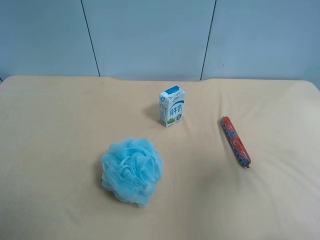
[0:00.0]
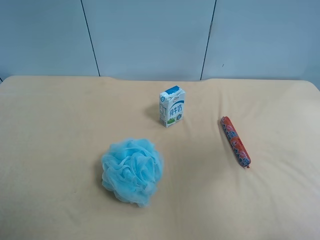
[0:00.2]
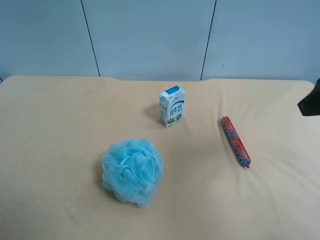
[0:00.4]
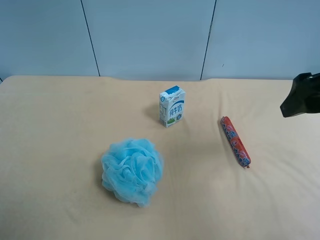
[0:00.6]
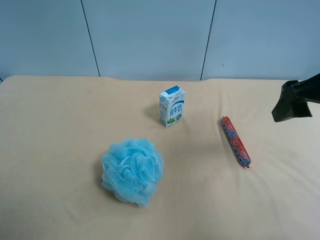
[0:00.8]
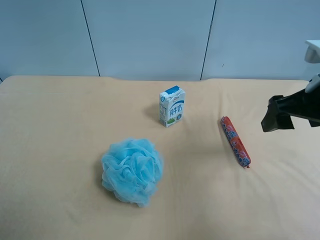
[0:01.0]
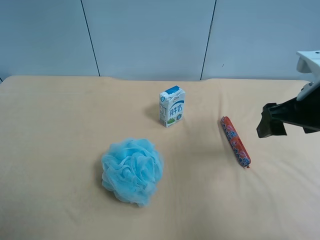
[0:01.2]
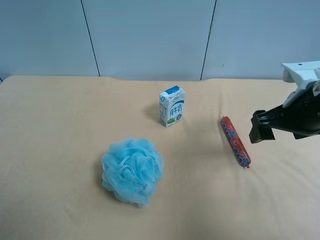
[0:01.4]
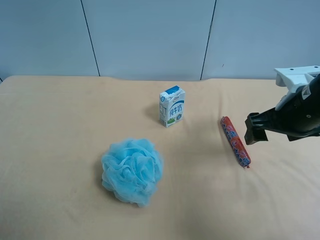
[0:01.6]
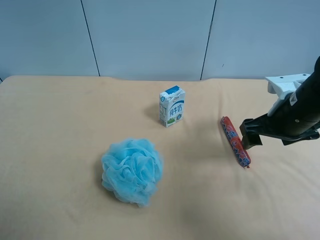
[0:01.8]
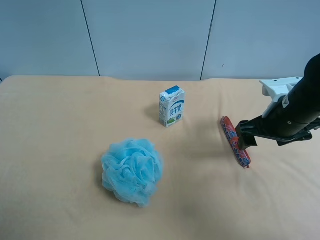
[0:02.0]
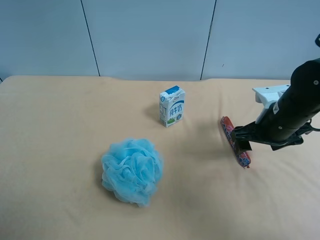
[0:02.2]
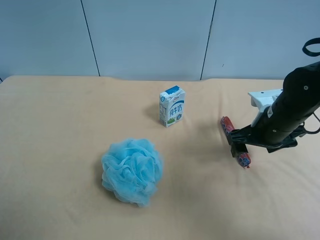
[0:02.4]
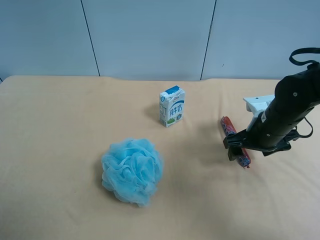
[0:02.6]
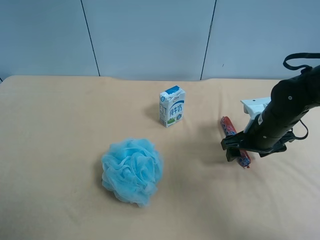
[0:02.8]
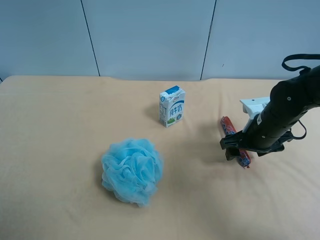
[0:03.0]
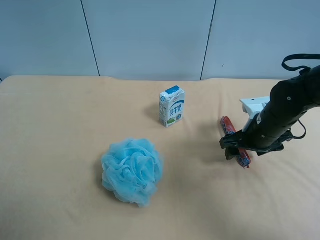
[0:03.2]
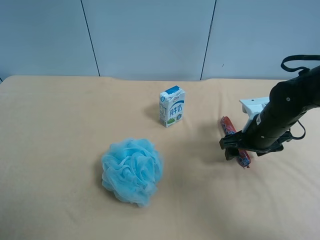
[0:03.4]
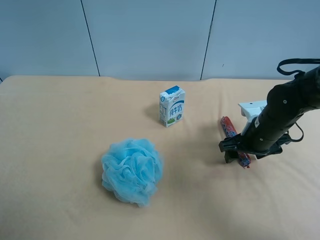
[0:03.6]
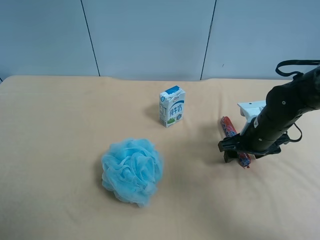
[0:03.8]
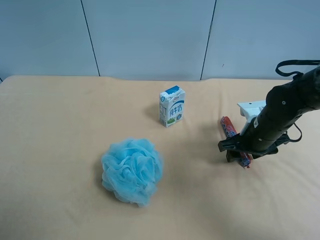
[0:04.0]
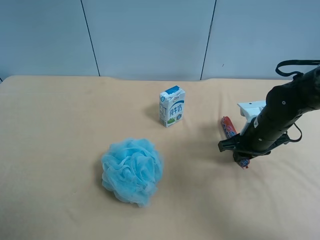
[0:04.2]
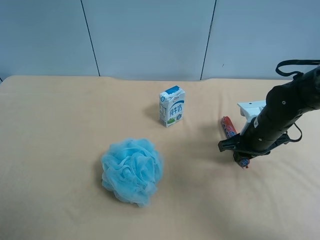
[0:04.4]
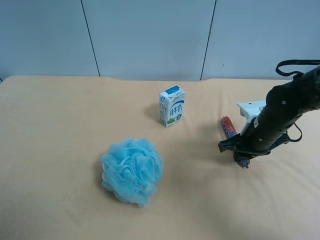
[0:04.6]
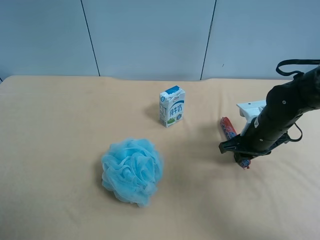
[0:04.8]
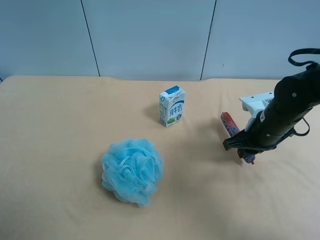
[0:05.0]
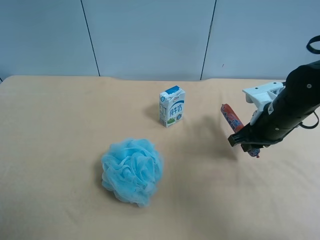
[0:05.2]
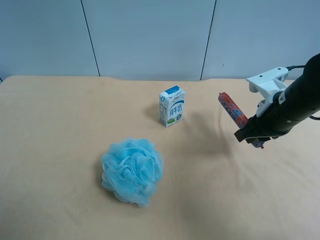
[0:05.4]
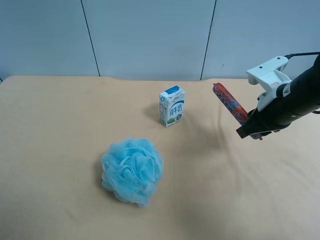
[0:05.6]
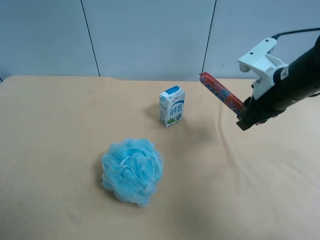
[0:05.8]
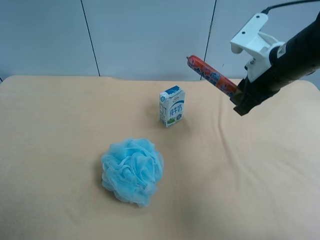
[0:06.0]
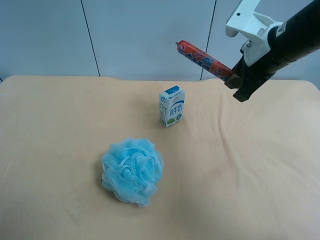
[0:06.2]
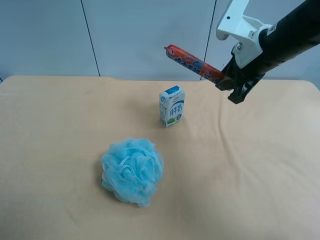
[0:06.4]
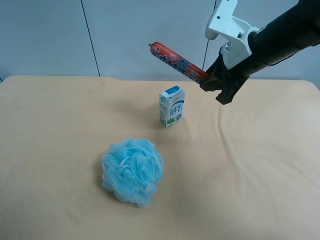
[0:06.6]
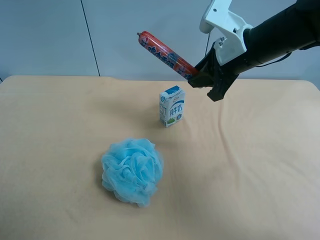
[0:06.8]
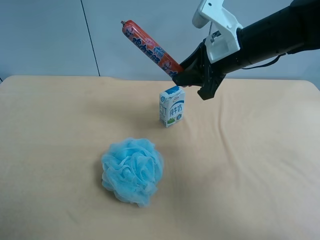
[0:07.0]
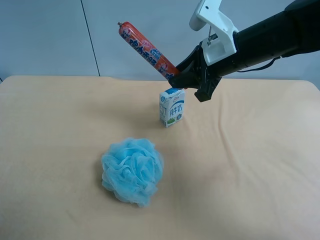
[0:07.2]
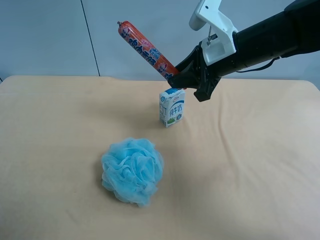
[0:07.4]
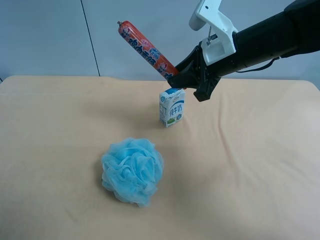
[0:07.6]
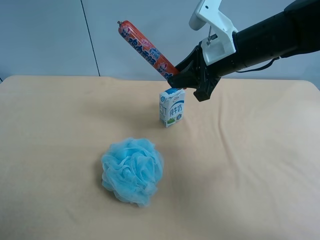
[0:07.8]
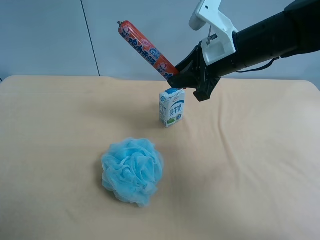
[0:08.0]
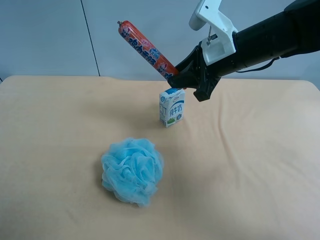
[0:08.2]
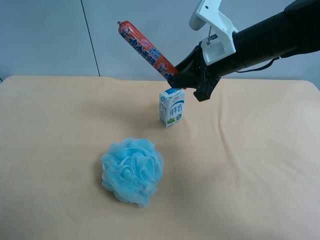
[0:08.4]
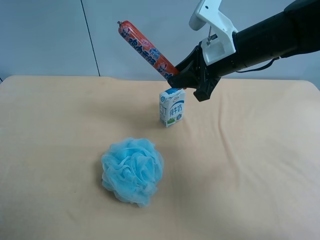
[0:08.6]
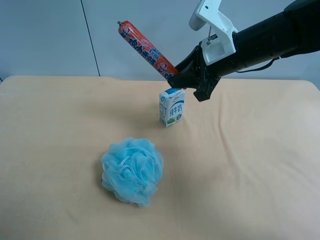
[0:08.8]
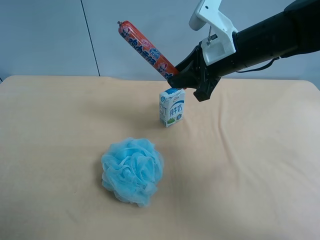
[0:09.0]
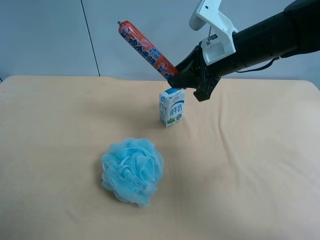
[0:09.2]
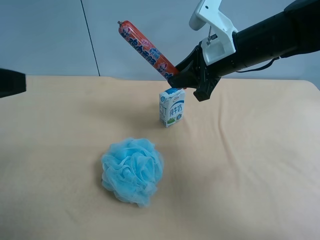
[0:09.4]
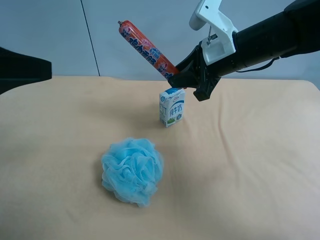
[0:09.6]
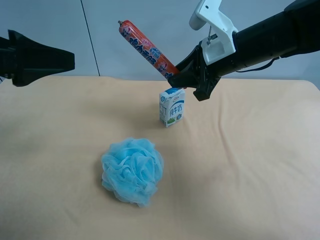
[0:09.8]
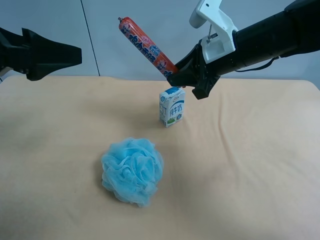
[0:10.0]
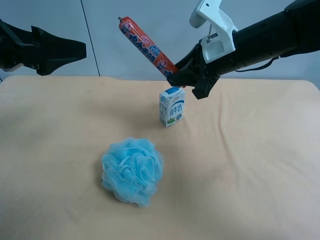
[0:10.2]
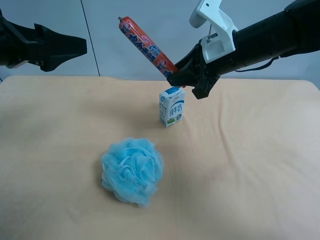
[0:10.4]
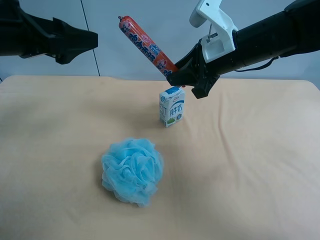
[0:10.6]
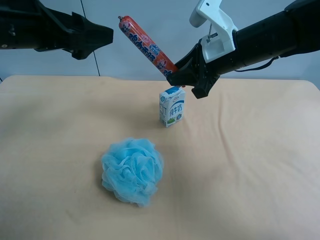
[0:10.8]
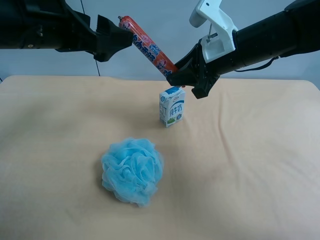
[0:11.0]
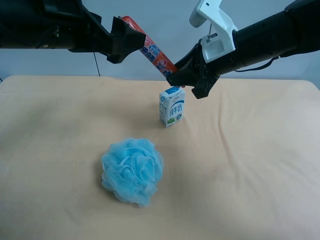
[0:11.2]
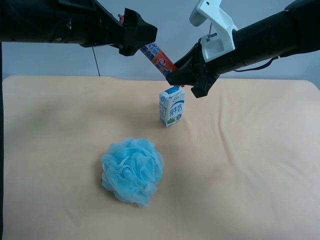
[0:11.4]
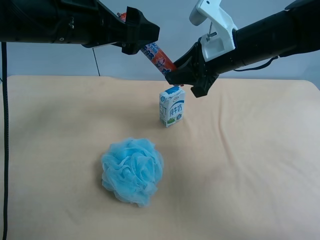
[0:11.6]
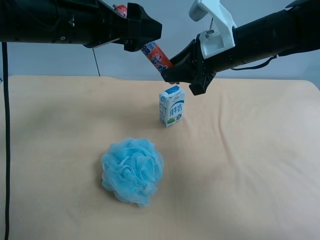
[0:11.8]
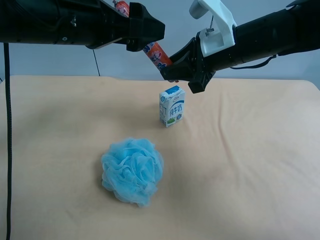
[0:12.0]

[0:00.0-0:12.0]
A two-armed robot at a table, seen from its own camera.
Task of the whole recording: use the right gripper to pick up the item and transfer it from the right gripper to the left gripper.
0:00.0 to 0:01.6: The right gripper travels forward and downward by roughly 20 cm.
0:01.6 to 0:03.0: The right gripper is displaced downward by about 10 cm.
0:03.0 to 0:04.4: The right gripper closes its fingers.
0:04.4 to 0:06.0: The right gripper is displaced upward by about 15 cm.
0:06.0 to 0:07.6: The right gripper shifts approximately 5 cm to the left.
0:09.0 to 0:10.4: The left gripper goes roughly 15 cm forward.
0:10.4 to 0:12.0: The left gripper shifts about 10 cm to the right.

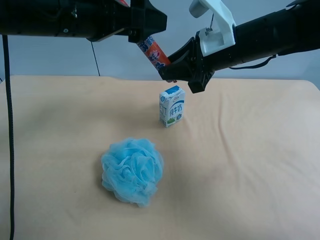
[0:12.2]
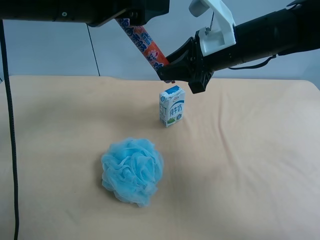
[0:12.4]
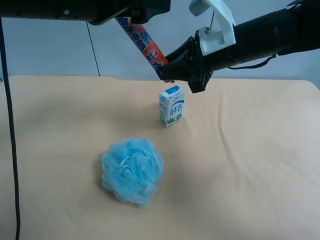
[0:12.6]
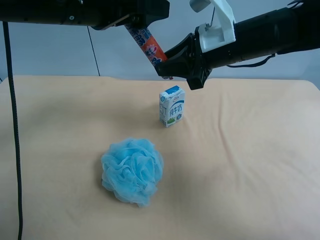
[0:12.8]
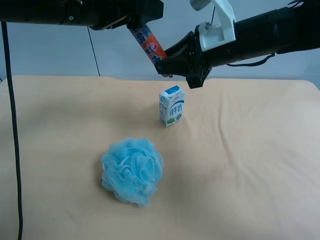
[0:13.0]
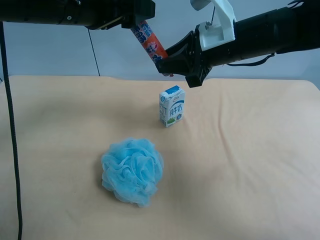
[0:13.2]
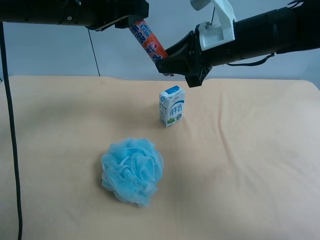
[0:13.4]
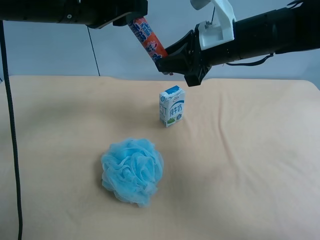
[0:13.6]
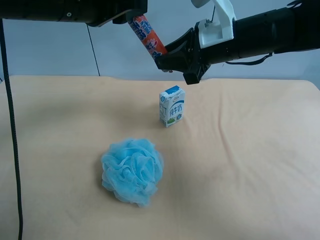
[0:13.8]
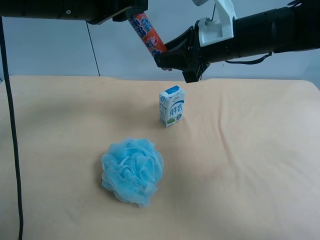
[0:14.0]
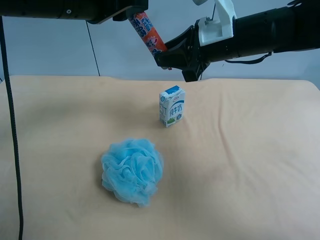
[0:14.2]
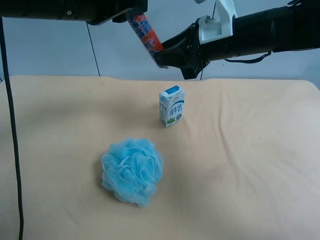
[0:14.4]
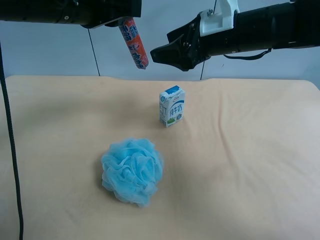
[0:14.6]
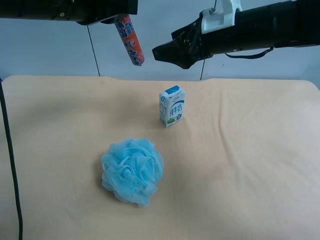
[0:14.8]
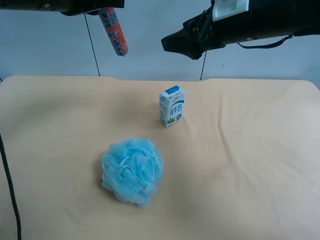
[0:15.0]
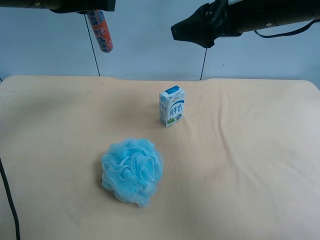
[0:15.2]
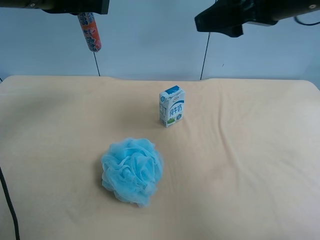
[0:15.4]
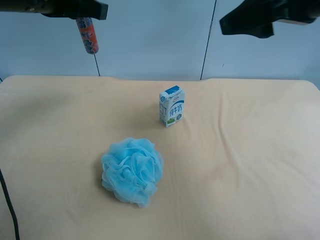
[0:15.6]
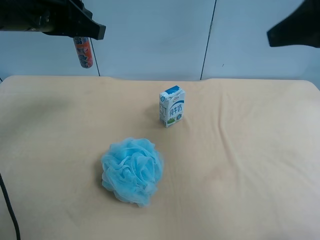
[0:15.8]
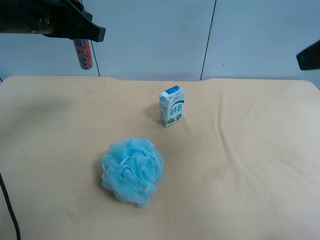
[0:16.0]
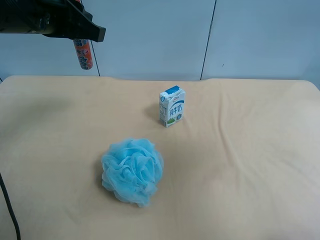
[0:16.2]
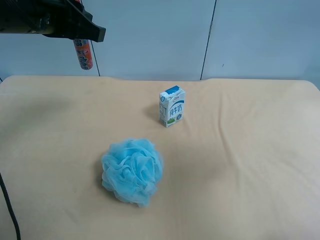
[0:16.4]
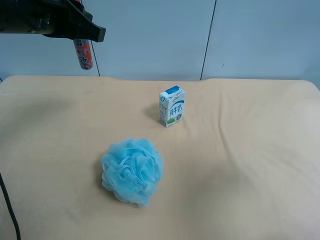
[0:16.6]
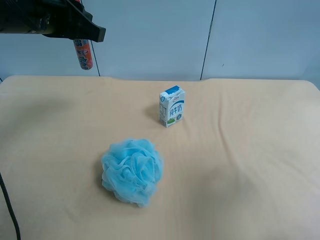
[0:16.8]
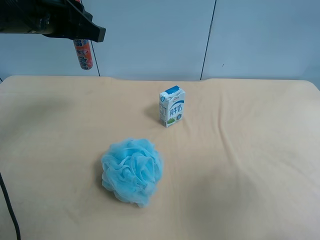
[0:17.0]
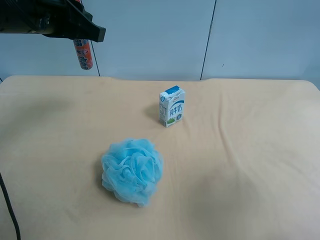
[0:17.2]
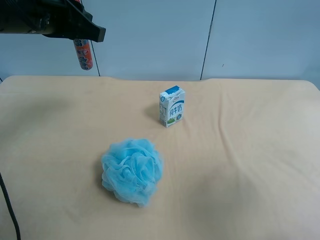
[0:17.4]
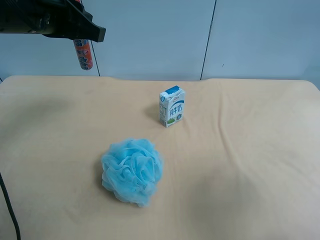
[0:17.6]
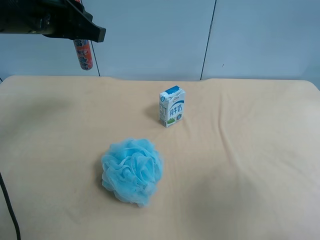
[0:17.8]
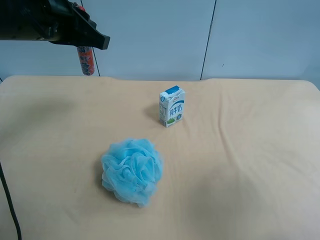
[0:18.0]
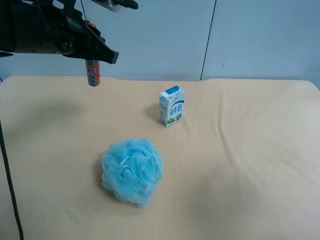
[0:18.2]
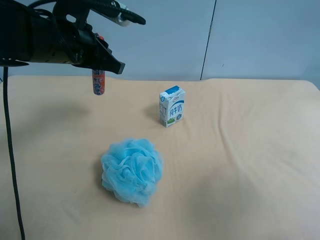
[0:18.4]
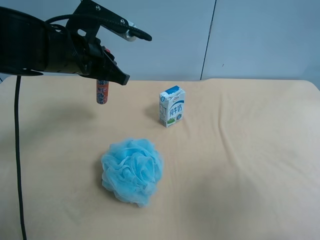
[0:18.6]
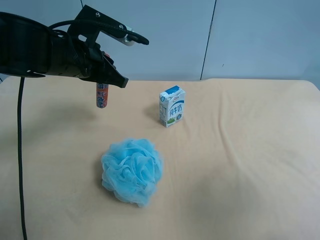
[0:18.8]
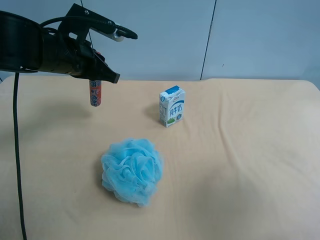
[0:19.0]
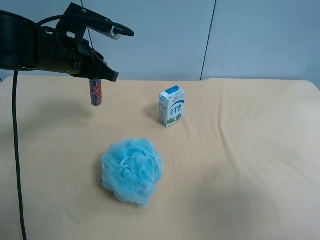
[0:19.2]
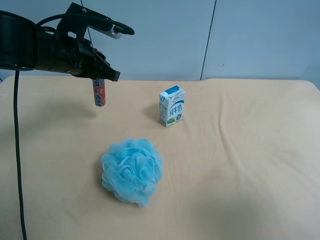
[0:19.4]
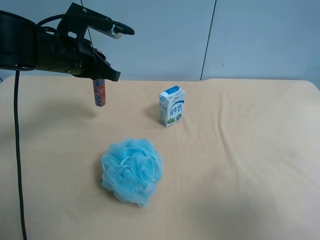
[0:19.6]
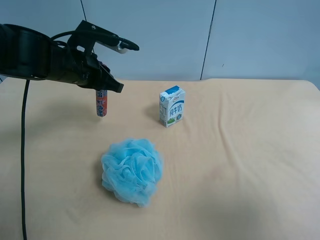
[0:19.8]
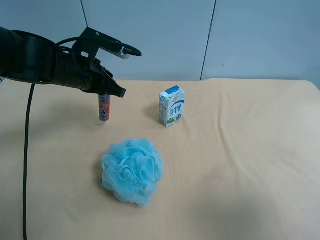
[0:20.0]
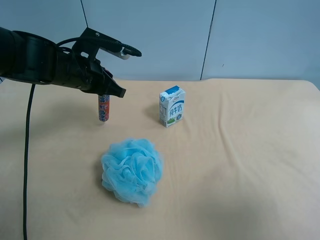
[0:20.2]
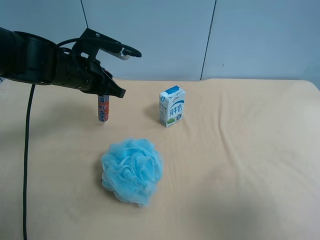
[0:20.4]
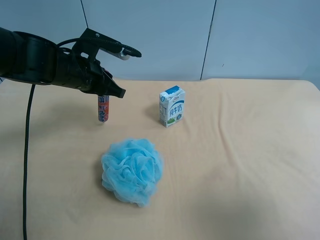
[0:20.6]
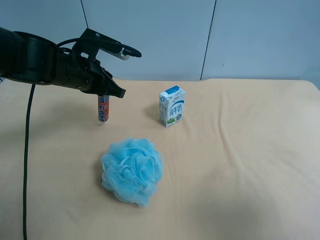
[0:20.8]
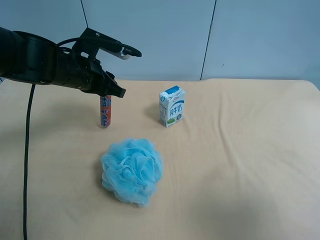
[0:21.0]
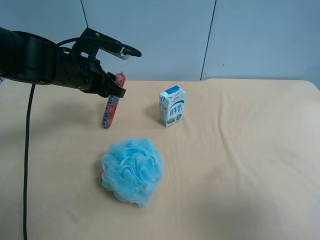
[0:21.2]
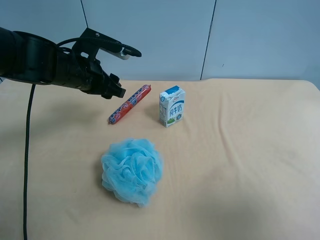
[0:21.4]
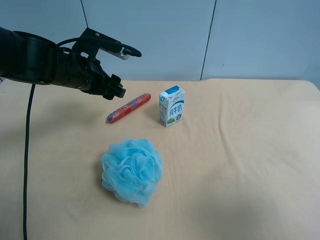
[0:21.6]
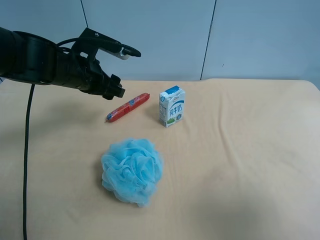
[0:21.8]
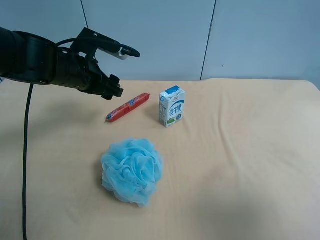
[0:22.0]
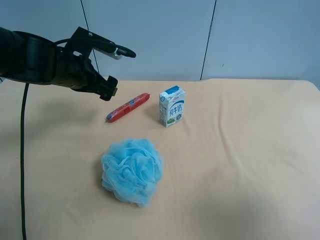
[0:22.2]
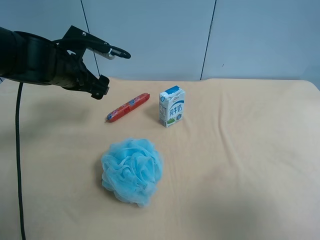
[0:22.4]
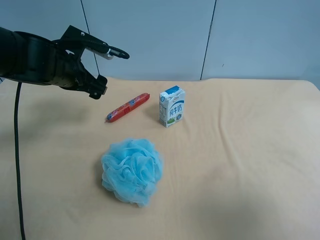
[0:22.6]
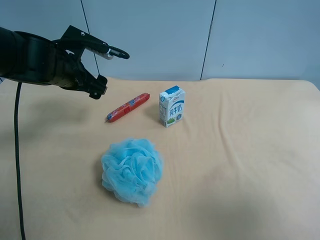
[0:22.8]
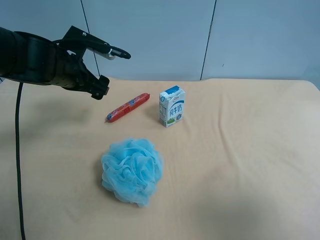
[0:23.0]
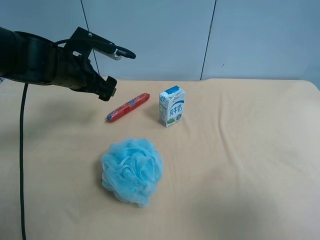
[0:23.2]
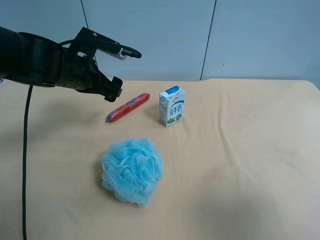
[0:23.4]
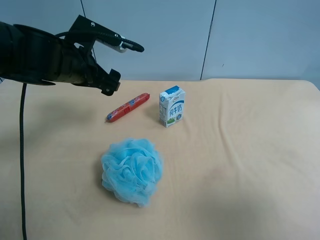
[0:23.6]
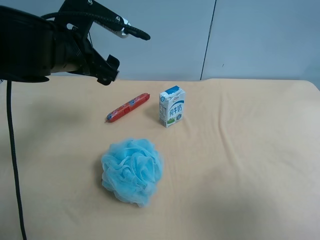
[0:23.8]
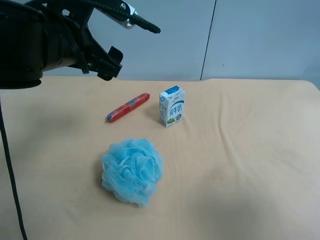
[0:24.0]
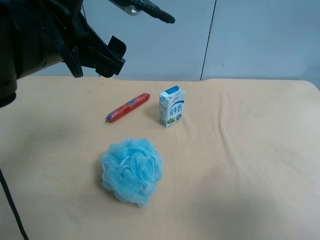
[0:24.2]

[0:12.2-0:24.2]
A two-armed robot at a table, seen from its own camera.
Task of the whole recording: use the right gripper to pick up the item and transfer it from the right gripper to the left gripper.
0:12.2 to 0:13.8: The left gripper closes its fingers.
0:13.8 to 0:15.2: The right gripper heads upward, covering roughly 5 cm, and opens.
0:15.2 to 0:16.6: The right gripper heads backward and to the right, covering approximately 25 cm, and opens its fingers.
0:16.6 to 0:18.2: The right gripper shifts by roughly 5 cm.
0:18.2 to 0:19.8: The left gripper goes about 10 cm downward.
0:19.8 to 0:21.2: Both grippers stay about where they are.
0:21.2 to 0:22.6: The left gripper opens its fingers.
0:22.6 to 0:24.2: The left gripper is displaced backward, upward and to the right by about 20 cm.
